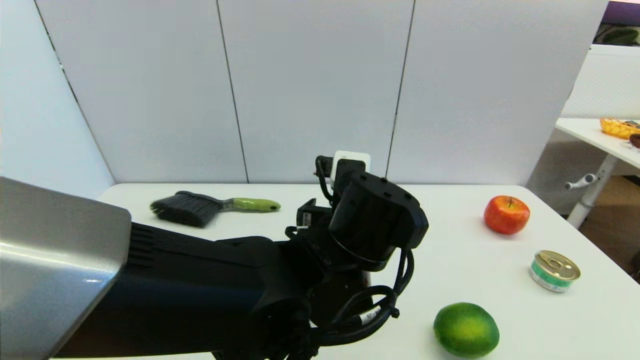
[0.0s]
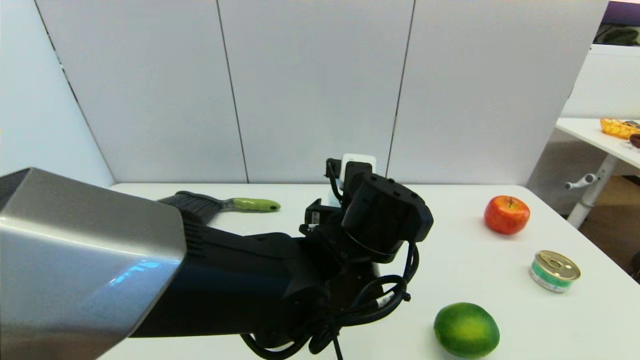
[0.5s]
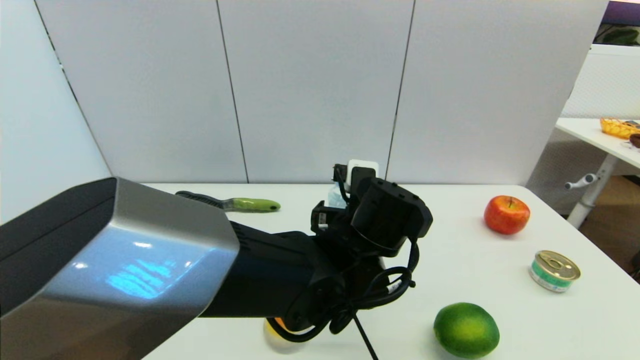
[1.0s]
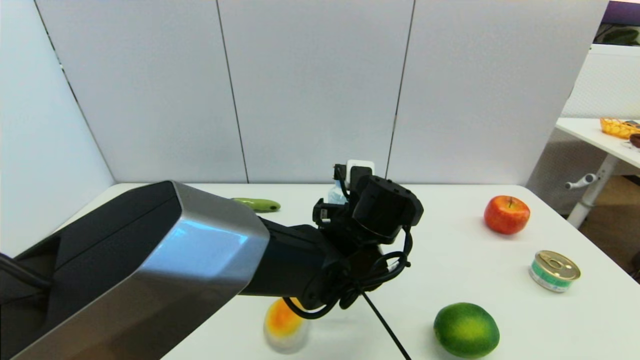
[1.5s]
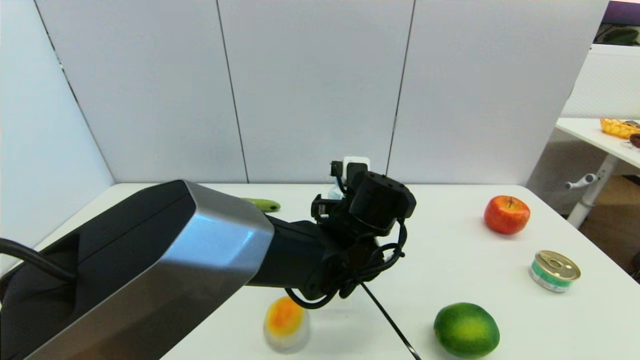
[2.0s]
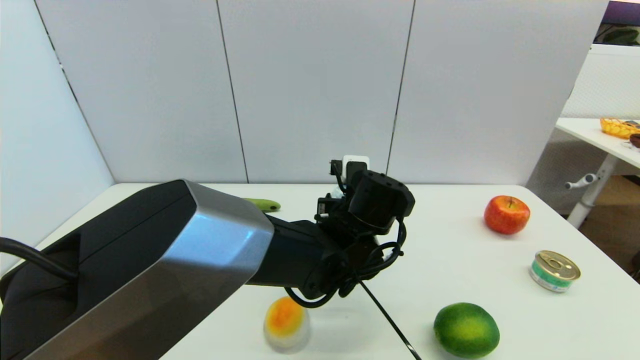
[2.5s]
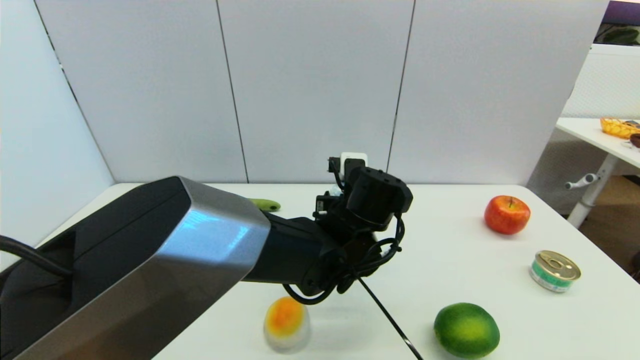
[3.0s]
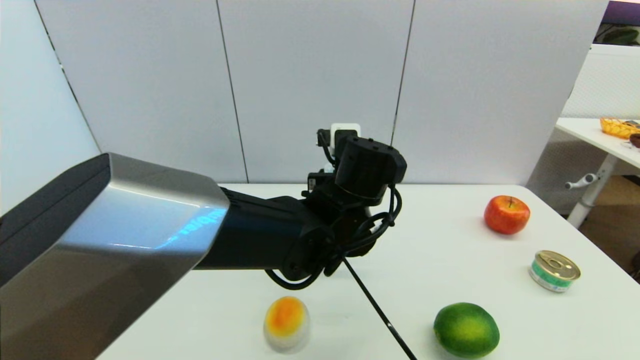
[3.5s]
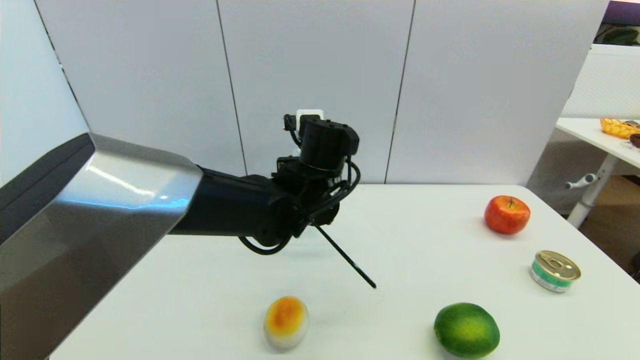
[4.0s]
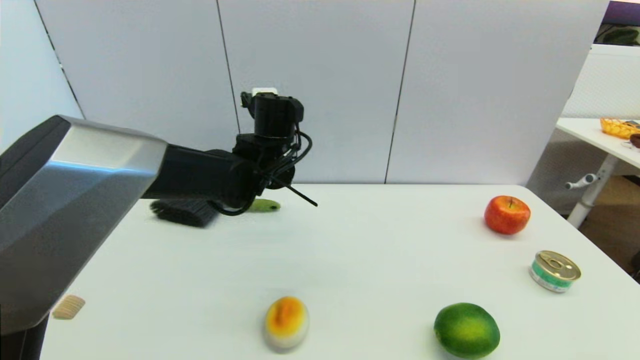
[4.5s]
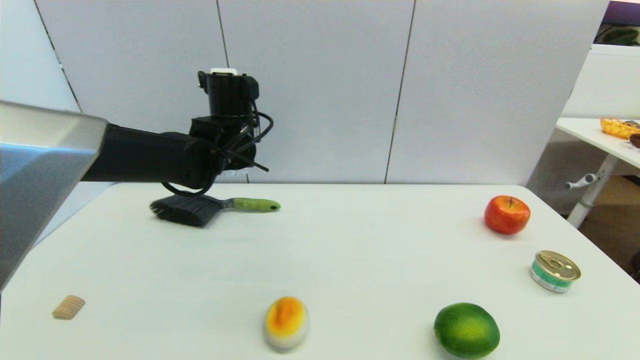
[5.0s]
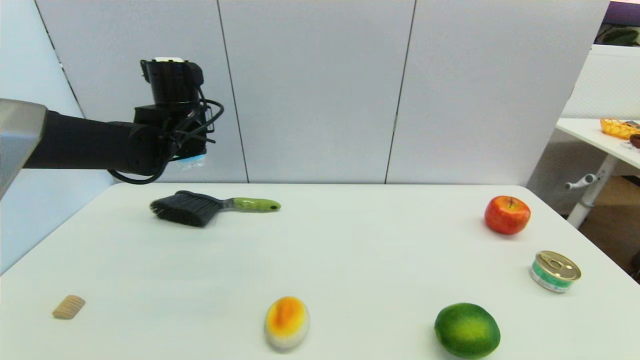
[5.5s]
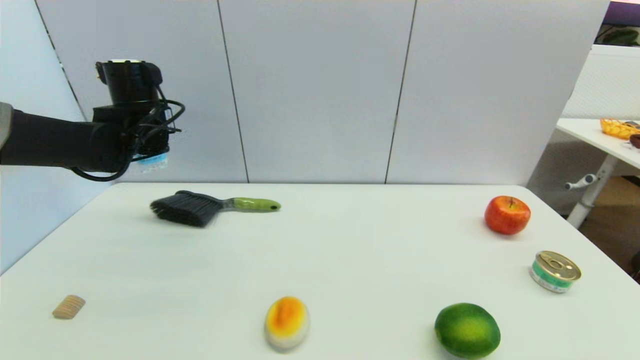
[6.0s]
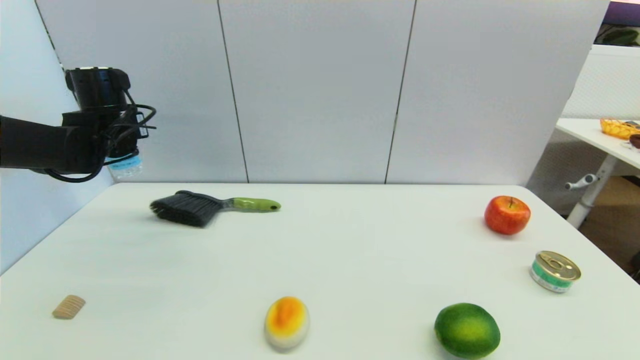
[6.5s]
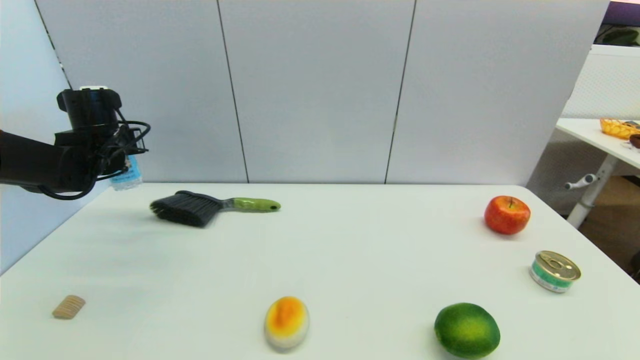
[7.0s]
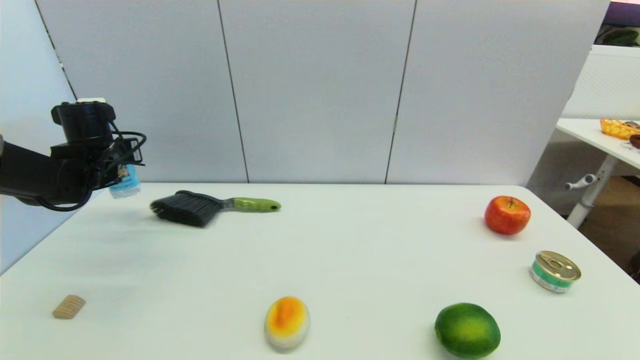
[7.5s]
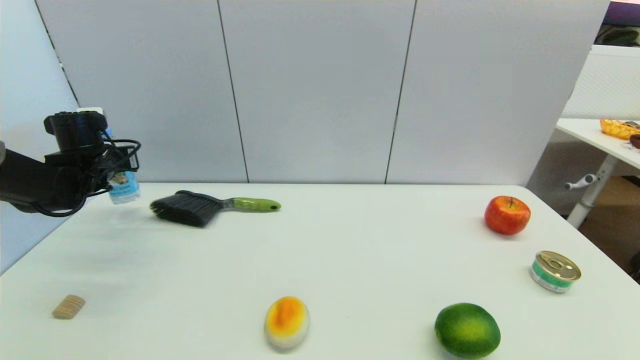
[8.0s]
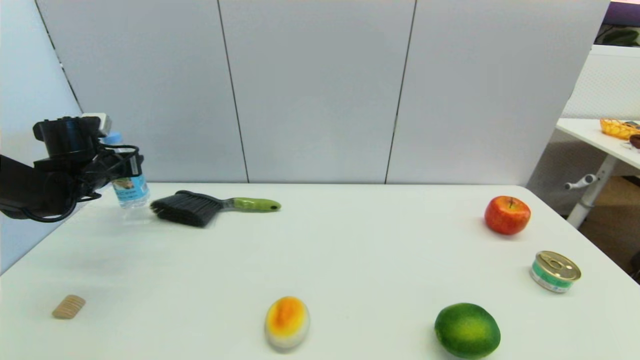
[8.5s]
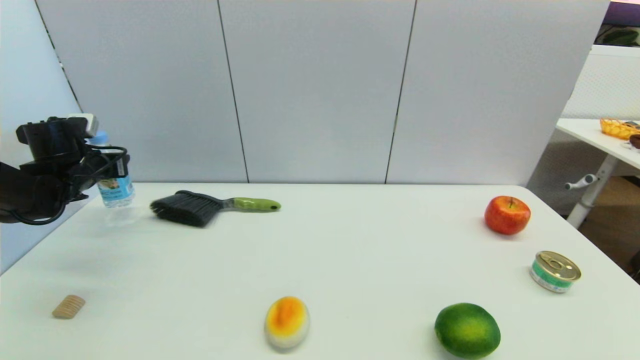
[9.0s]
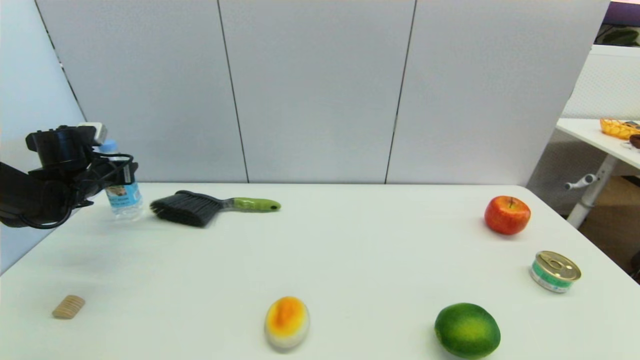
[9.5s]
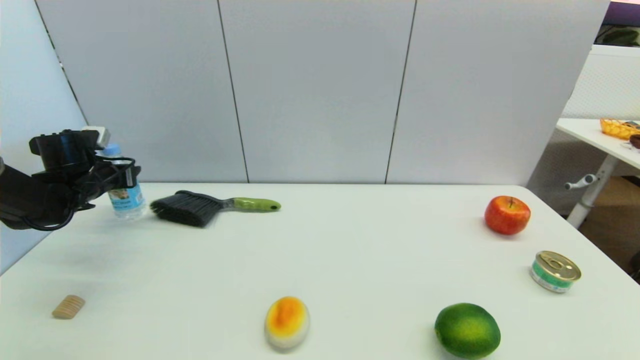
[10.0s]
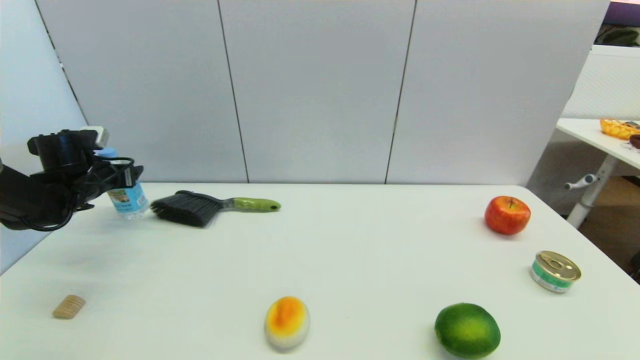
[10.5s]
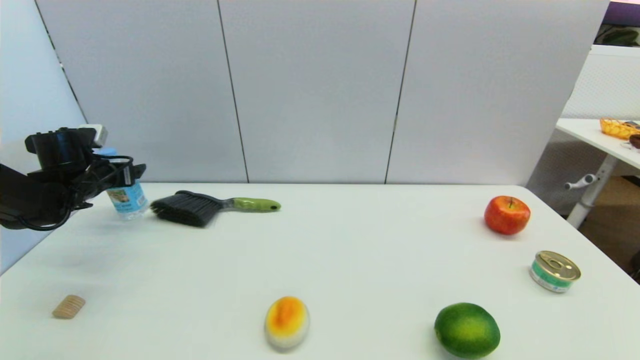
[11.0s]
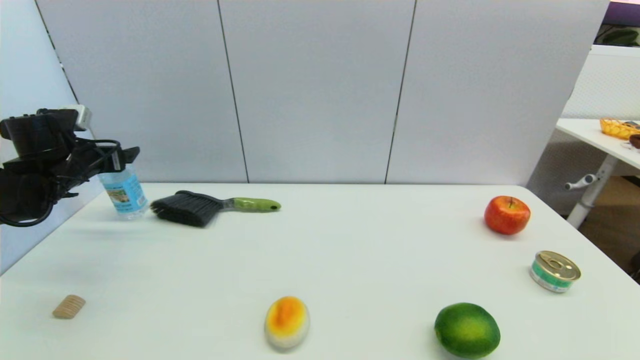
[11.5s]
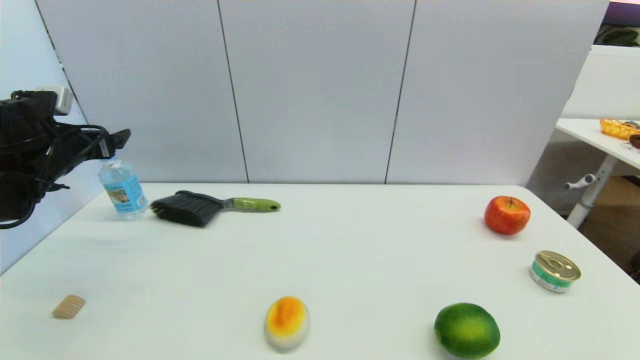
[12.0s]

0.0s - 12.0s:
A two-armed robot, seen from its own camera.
Step, 0.0s - 2.5s: Grasp the soda water with left gripper.
Step, 3.0s - 11.0s: Place the soda water on the table with left gripper.
0.0s - 2.0s: The left gripper is displaced forward by some 10 cm.
2.0s - 4.0s: The left gripper moves to the left and upward, some 10 cm, and closes its fingers.
4.0s - 6.0s: The left gripper moves to the left, about 25 cm.
6.0s - 8.0s: The left gripper travels to the left and downward by roughly 15 cm.
8.0s - 10.0s: The grippers move only a little.
10.0s - 12.0s: The left gripper is displaced upward by approximately 5 cm, and opens its fingers.

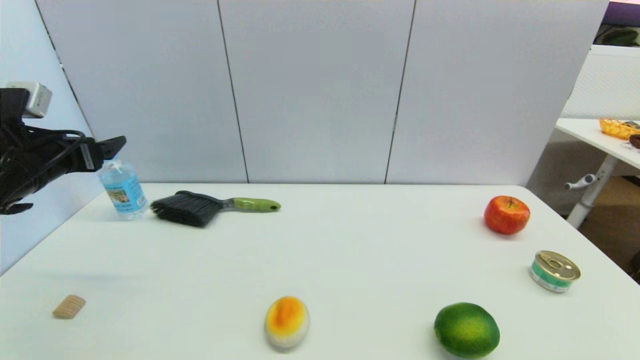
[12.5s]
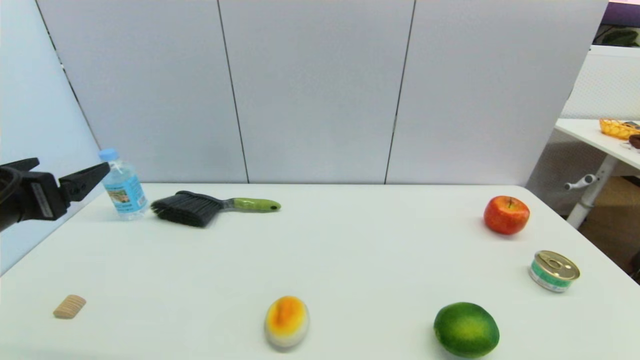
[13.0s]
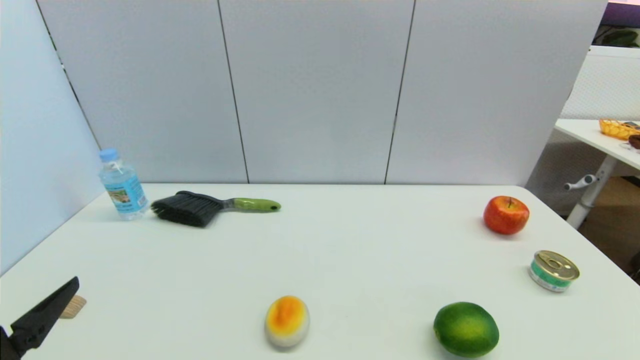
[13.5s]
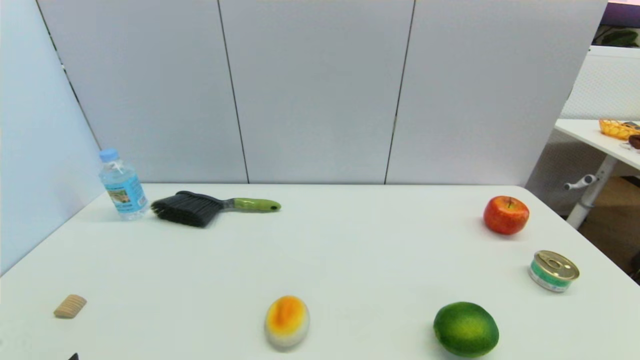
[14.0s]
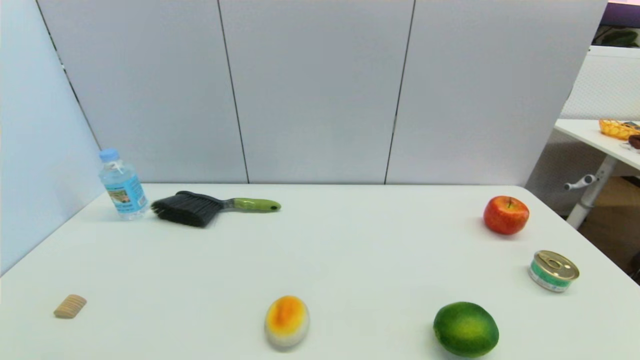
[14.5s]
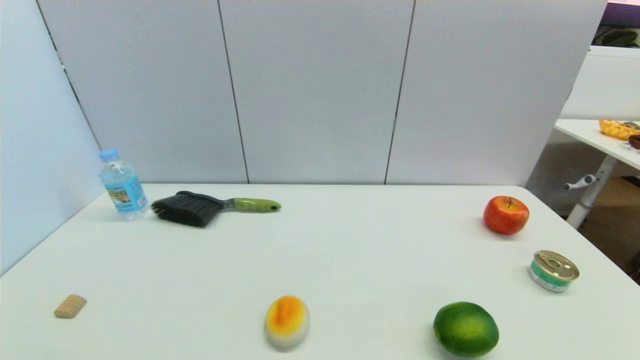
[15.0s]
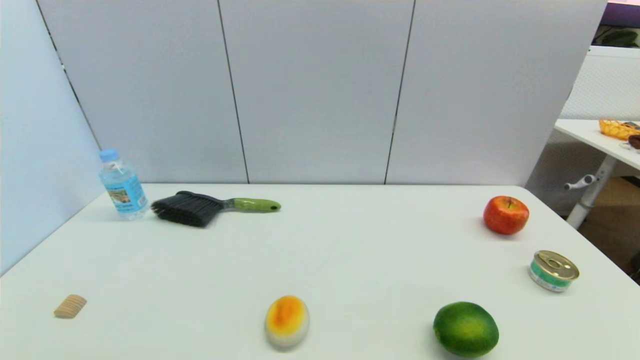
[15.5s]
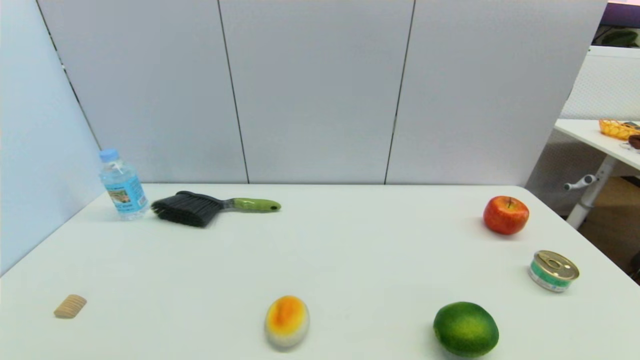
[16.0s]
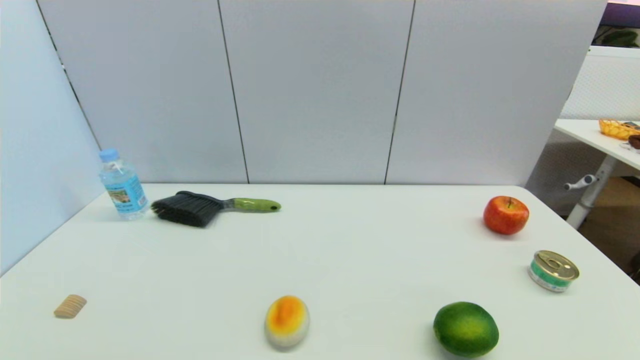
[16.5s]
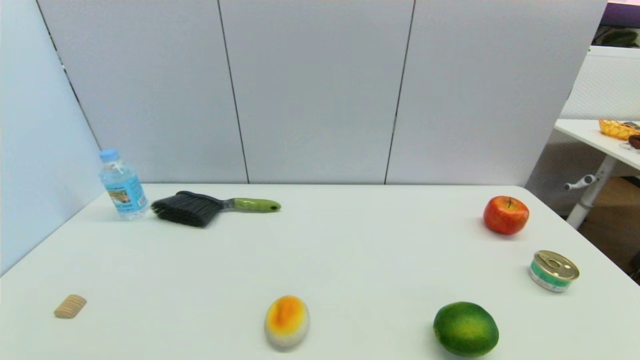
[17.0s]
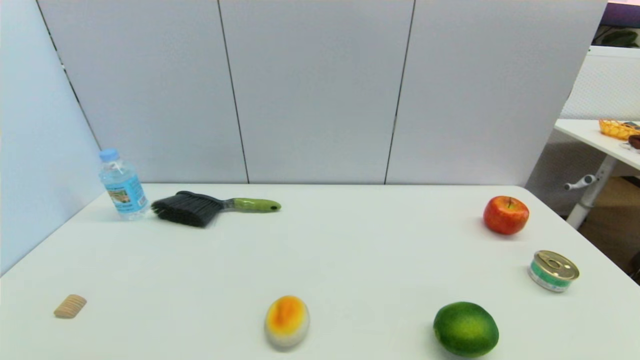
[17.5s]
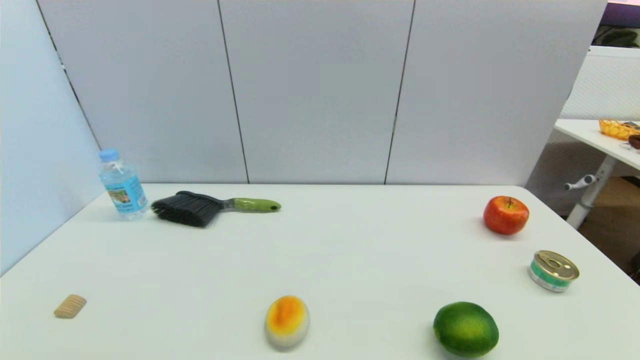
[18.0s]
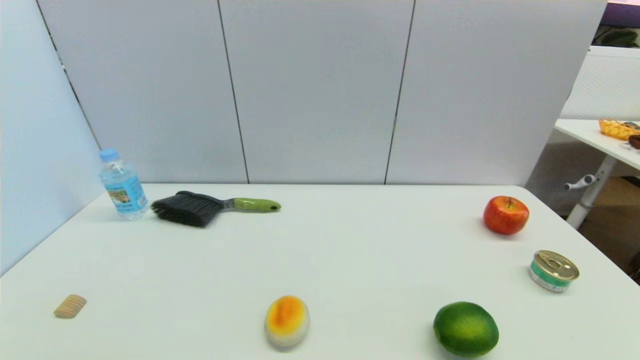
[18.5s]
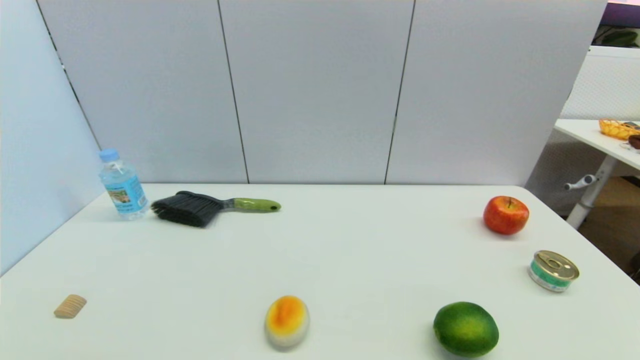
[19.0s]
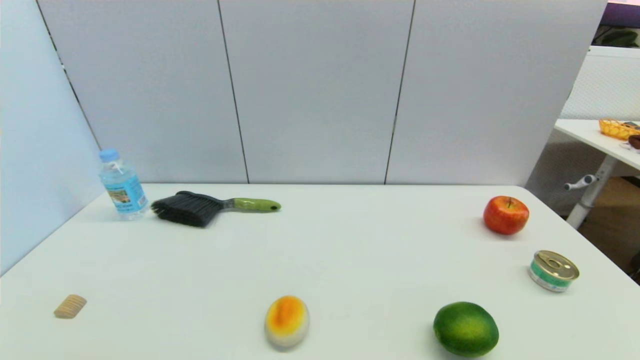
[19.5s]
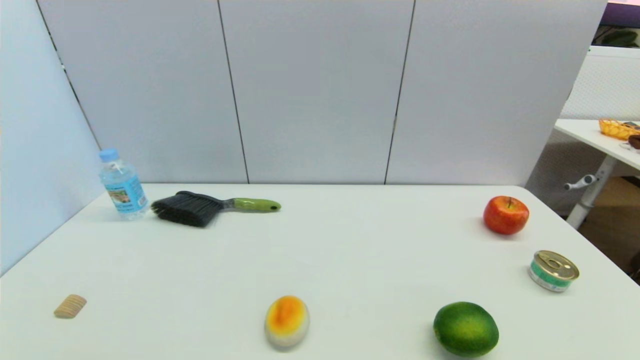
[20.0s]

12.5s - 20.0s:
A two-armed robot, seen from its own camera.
12.5s - 14.5s: The left gripper shifts about 35 cm backward and downward.
16.5s - 20.0s: Neither gripper changes place.
